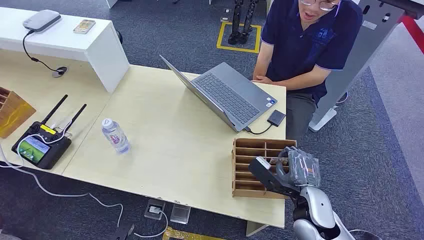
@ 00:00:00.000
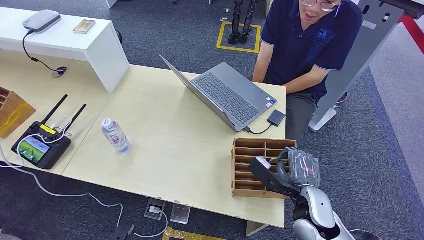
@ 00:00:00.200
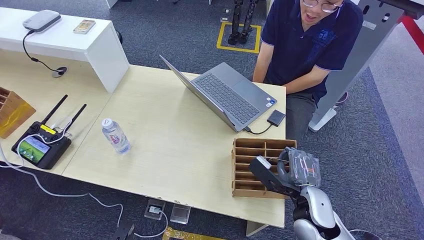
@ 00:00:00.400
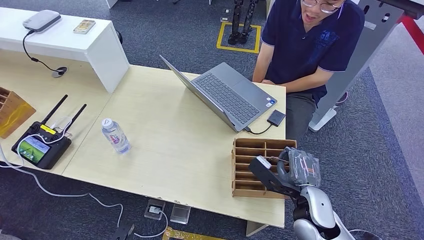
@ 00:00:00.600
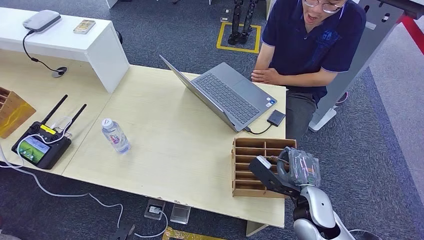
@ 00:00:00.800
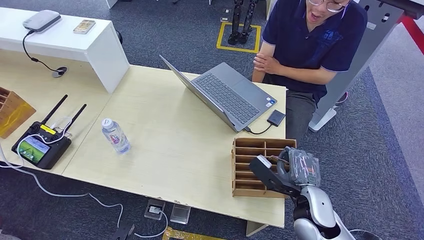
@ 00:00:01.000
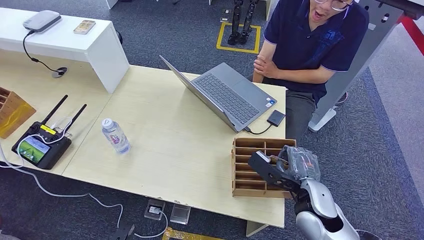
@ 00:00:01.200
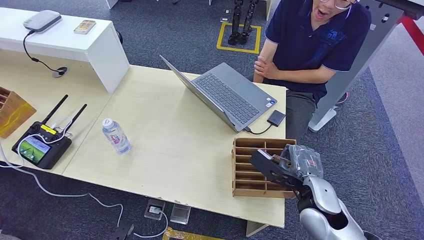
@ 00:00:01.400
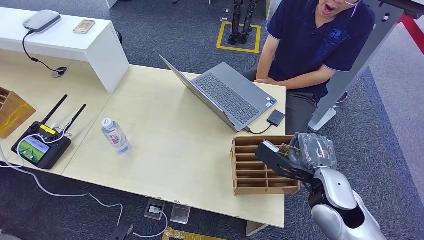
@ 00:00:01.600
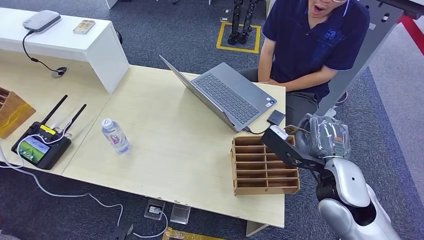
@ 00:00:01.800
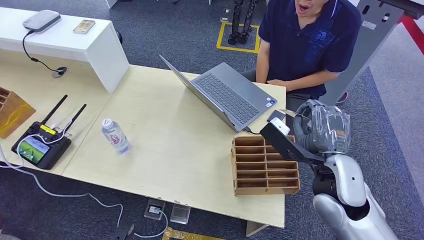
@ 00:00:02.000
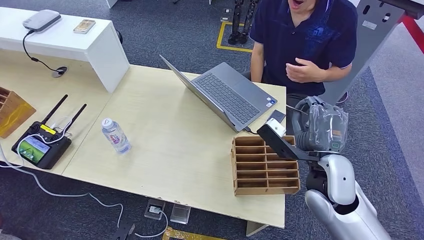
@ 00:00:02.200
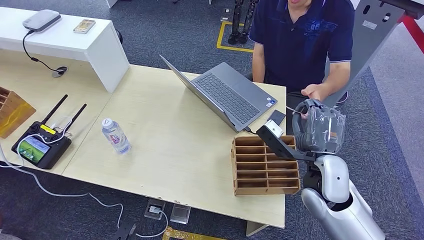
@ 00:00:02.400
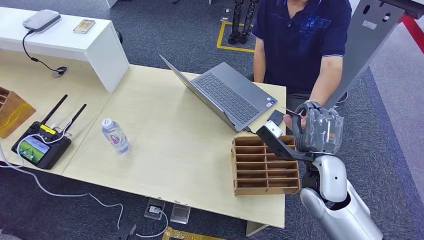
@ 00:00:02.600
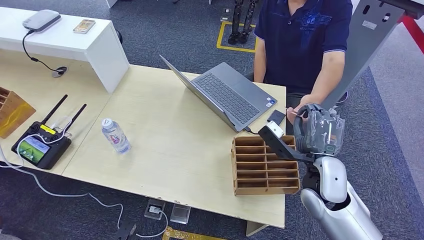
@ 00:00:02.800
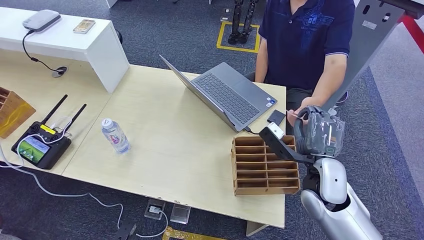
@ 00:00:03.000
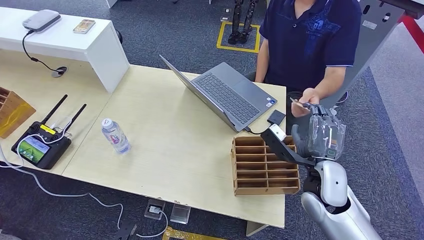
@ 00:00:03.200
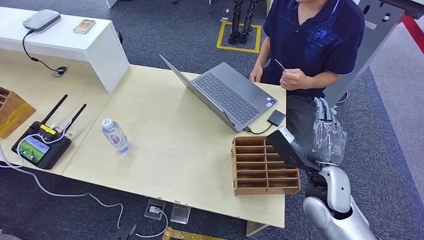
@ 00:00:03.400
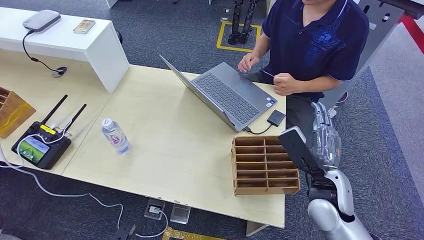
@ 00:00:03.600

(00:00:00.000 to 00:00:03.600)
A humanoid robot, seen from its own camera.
Task of the whole recording: Pick up the card and hand it over to the target person.
Step, 00:00:00.000 - 00:00:01.800: Pick up the key card from the card box.
Step, 00:00:02.000 - 00:00:03.600: Hand the key card to the target.
00:00:01.800 - 00:00:03.600: The right hand goes roughly 5 cm downward and to the right.
